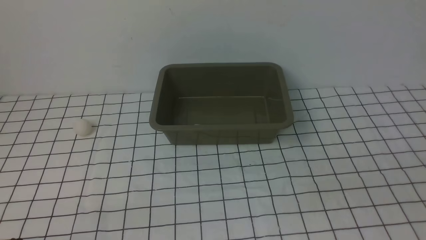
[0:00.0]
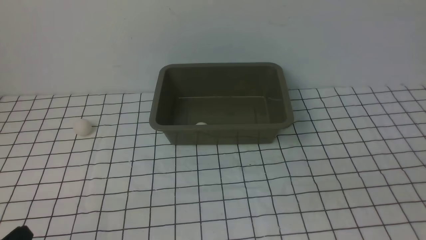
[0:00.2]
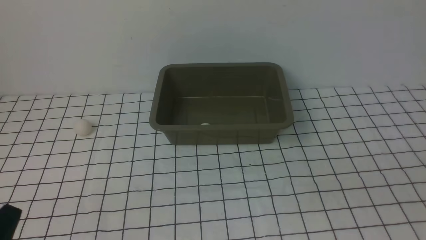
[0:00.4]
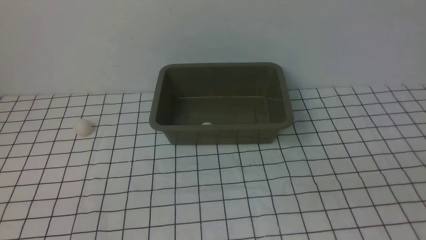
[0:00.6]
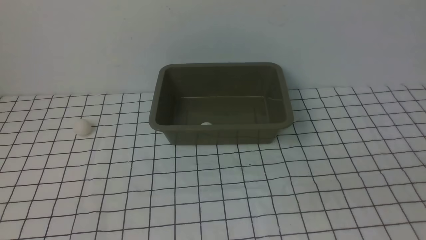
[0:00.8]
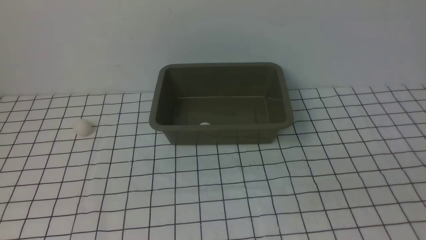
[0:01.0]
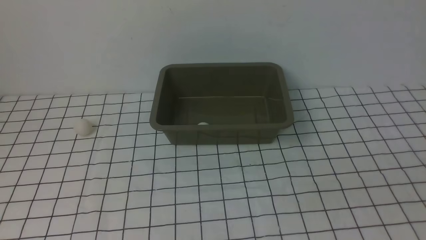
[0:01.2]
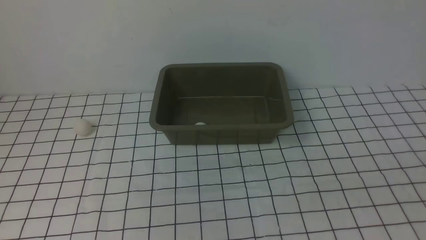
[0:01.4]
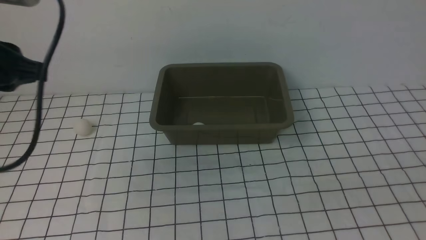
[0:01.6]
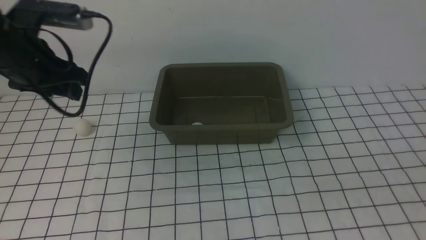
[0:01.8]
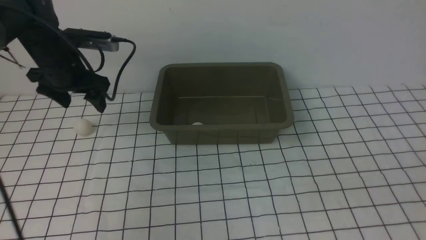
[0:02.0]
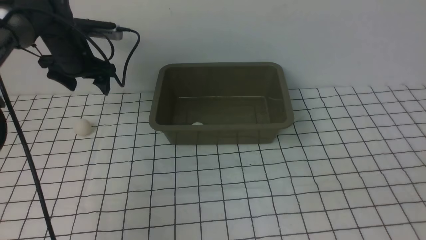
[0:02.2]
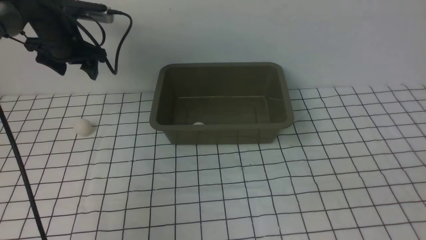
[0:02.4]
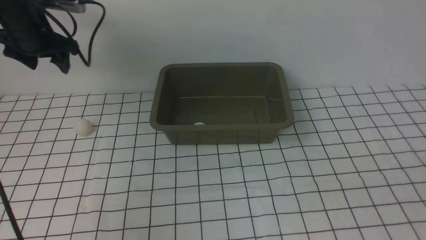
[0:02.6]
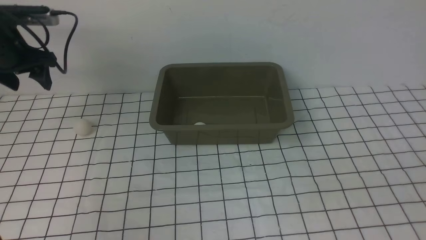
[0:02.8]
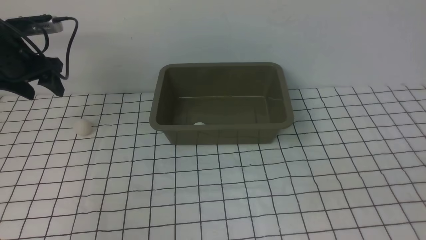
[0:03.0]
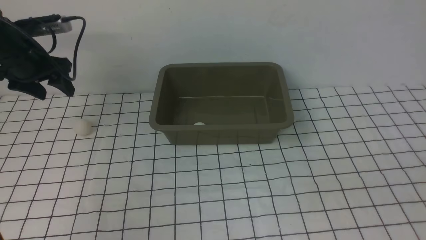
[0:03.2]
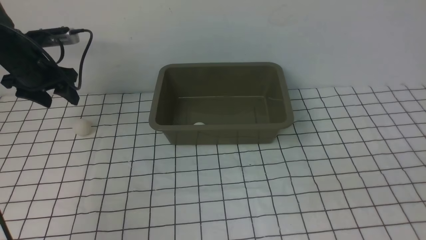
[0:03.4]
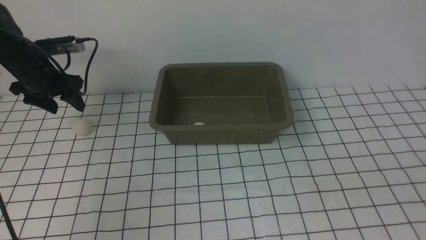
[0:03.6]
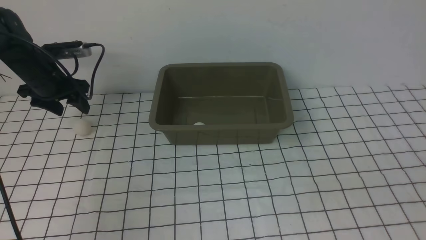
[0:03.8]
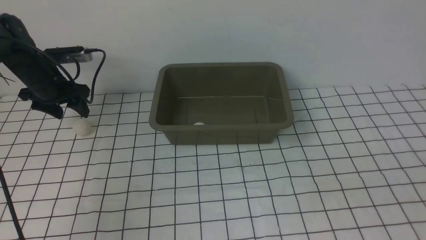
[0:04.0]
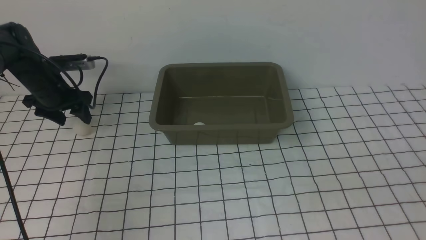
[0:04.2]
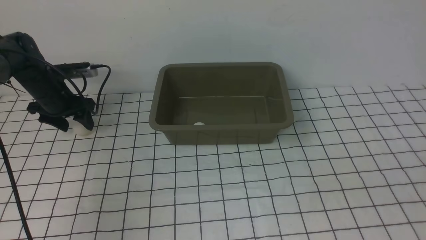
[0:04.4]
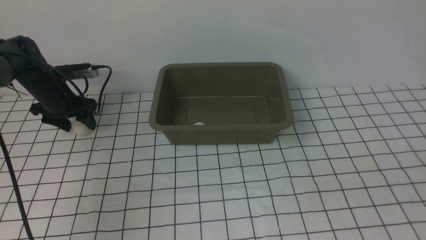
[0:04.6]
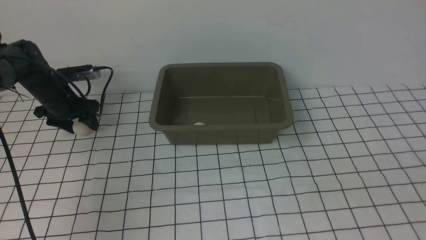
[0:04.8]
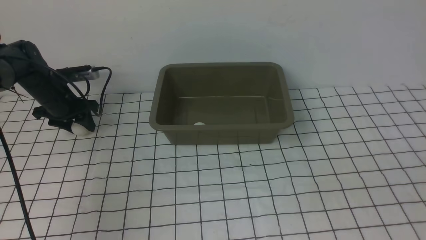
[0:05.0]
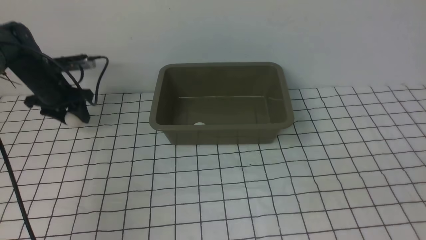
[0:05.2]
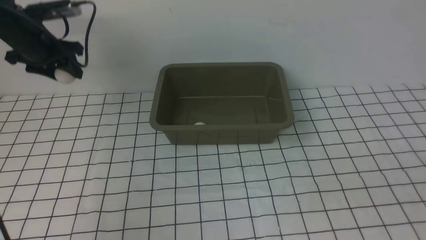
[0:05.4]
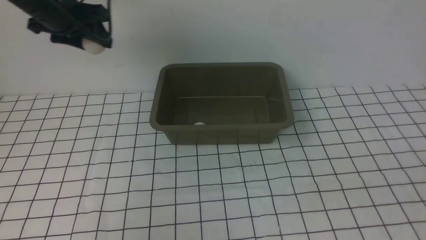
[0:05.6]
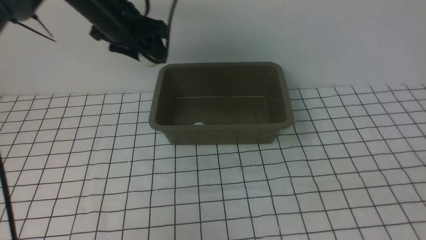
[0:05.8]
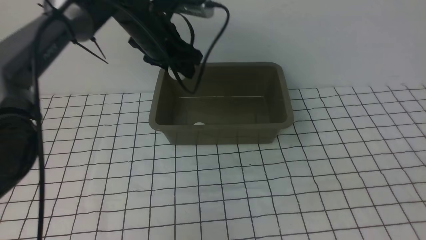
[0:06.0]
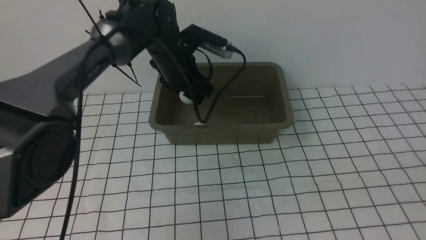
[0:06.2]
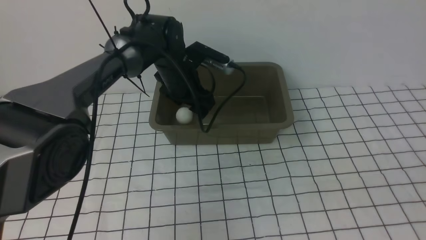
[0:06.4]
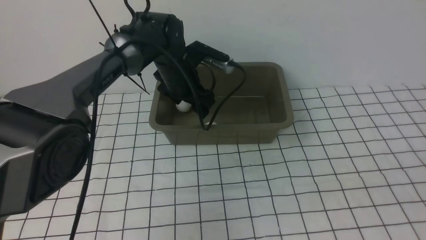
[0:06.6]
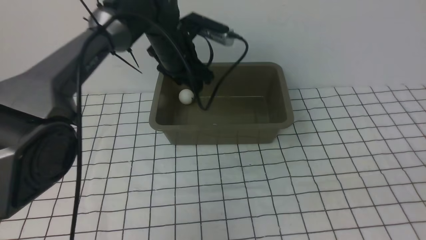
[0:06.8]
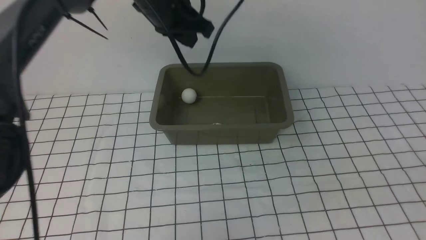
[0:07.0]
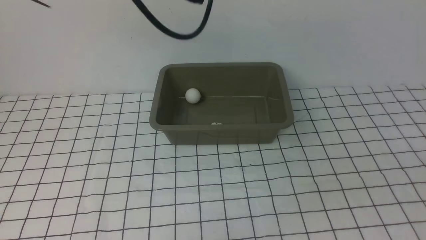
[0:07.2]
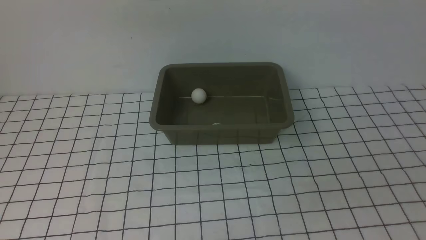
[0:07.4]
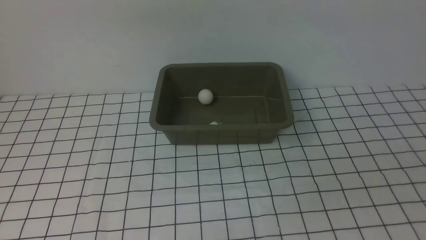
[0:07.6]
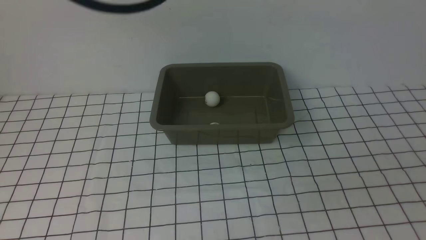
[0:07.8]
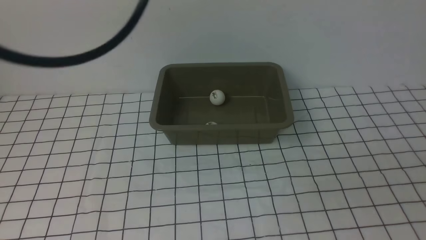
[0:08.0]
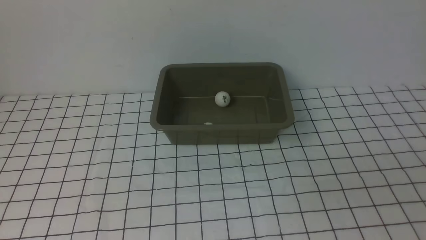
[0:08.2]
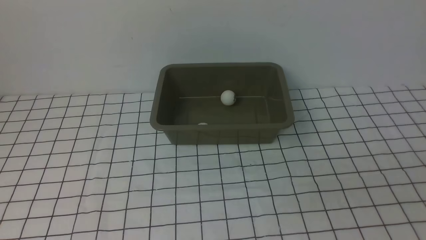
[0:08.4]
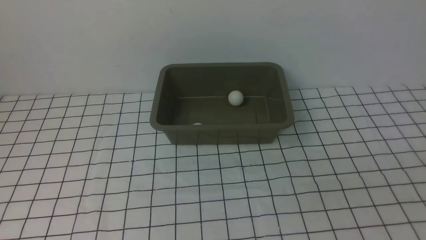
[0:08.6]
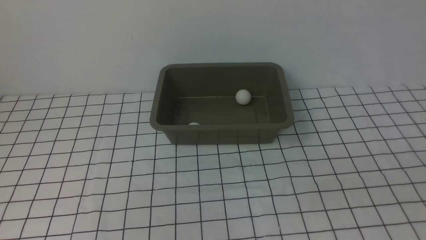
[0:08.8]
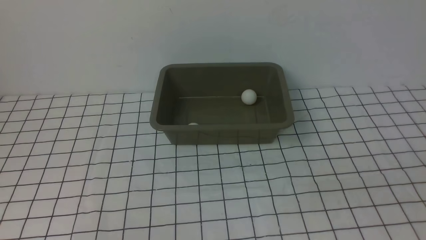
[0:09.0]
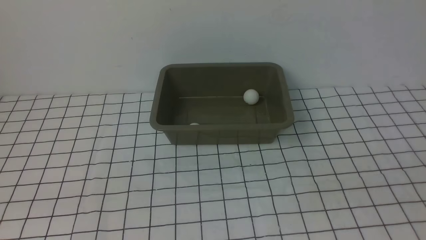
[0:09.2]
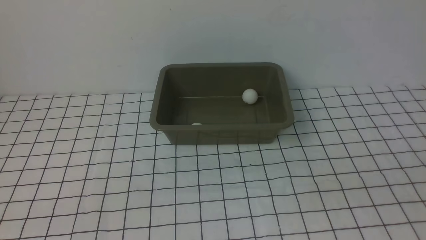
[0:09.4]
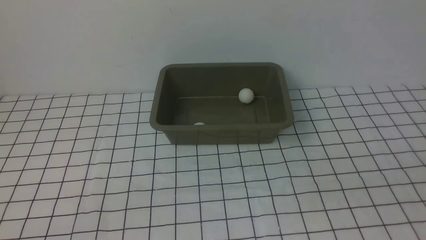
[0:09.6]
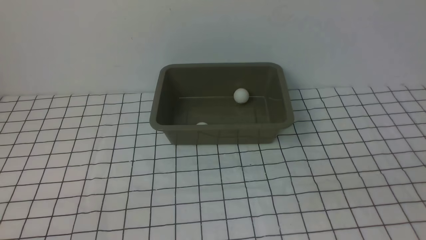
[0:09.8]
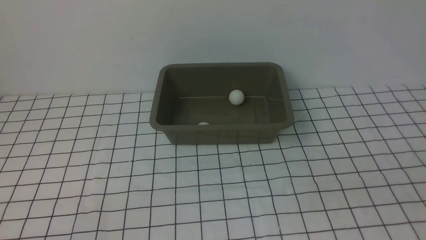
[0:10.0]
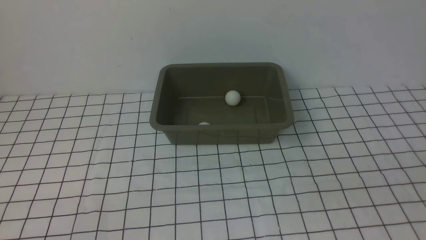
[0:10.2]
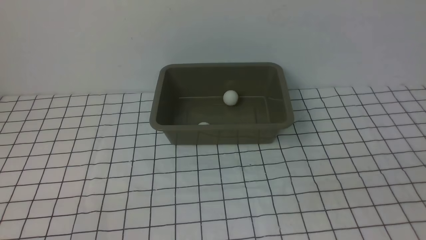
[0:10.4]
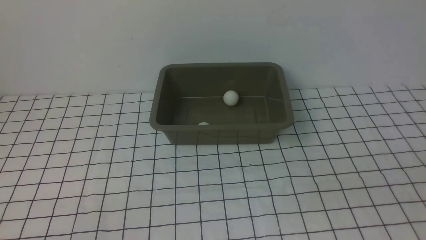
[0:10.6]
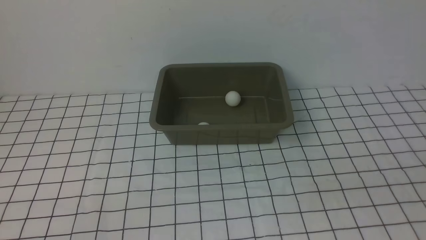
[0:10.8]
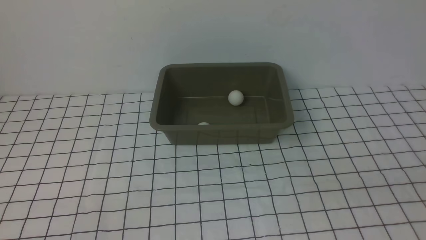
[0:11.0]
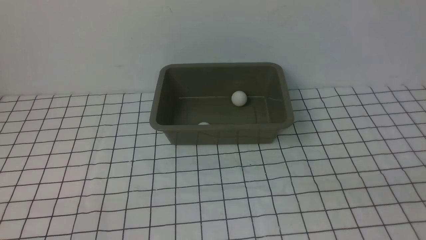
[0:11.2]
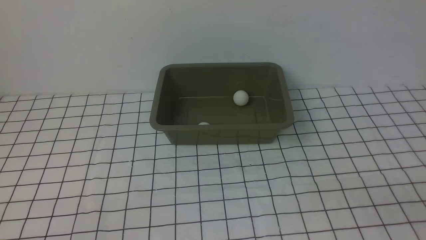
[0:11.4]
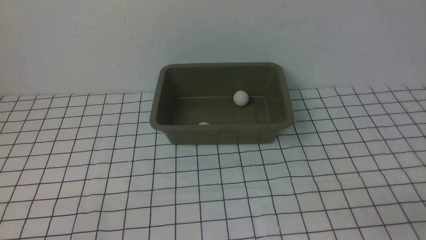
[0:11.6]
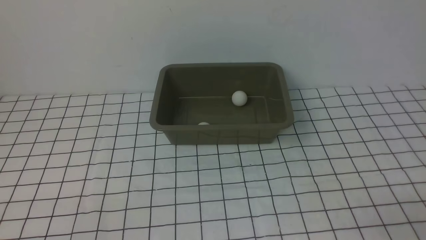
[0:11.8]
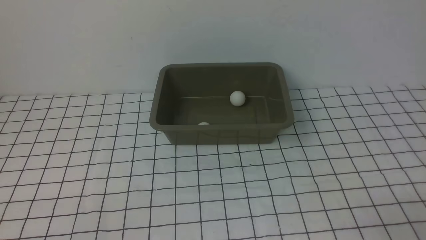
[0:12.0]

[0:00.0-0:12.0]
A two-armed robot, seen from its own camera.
Step, 0:00.0 to 0:05.4: use the left arm to clamp the table tennis ball closest to it.
Step, 0:05.6 to 0:06.6: use the left arm to put the table tennis ball into the box.
0:00.0 to 0:01.6: The left gripper goes roughly 35 cm forward, and opens.
0:01.6 to 0:03.0: The left gripper shifts approximately 10 cm to the left, downward and forward.
0:03.0 to 0:04.4: The left gripper travels downward by approximately 10 cm.
0:04.4 to 0:06.0: The left gripper shifts some 25 cm to the right and upward.
0:06.0 to 0:07.6: The left gripper moves upward and backward, some 30 cm, and closes its fingers.

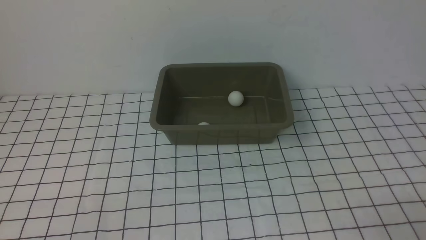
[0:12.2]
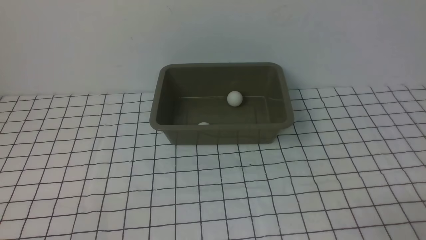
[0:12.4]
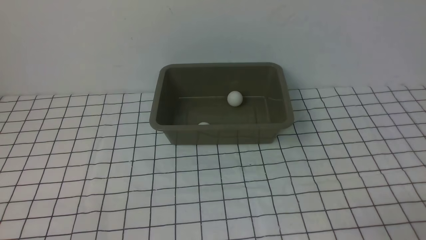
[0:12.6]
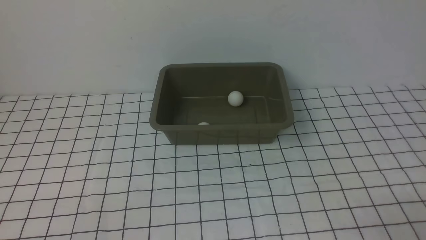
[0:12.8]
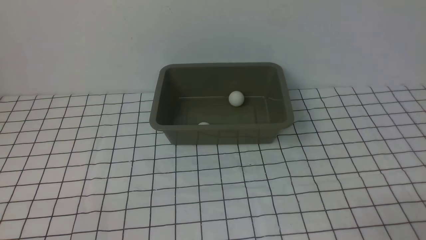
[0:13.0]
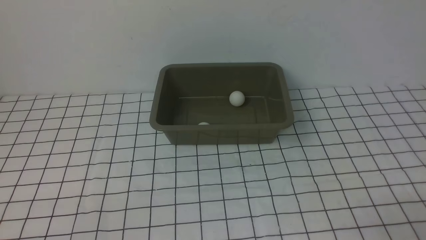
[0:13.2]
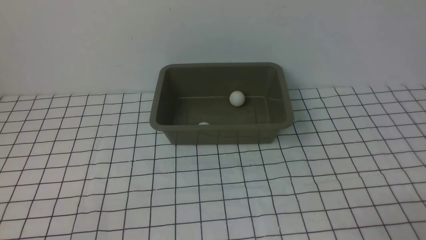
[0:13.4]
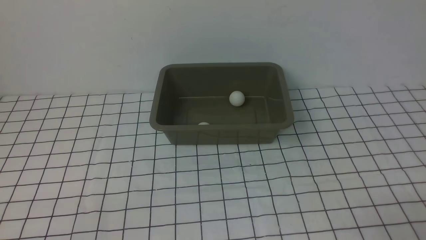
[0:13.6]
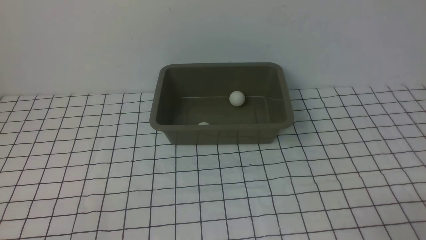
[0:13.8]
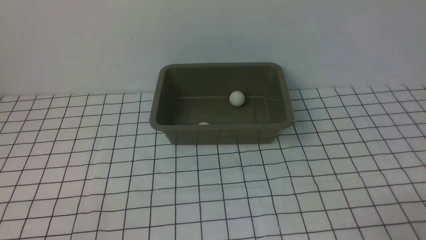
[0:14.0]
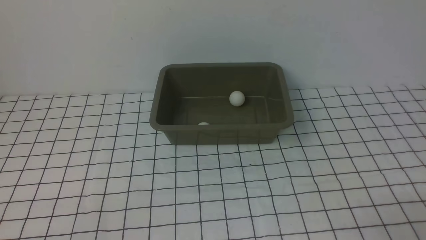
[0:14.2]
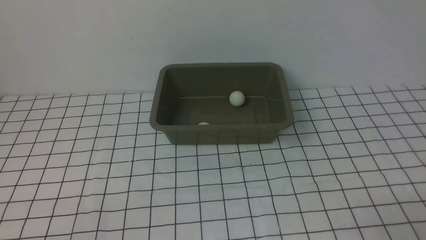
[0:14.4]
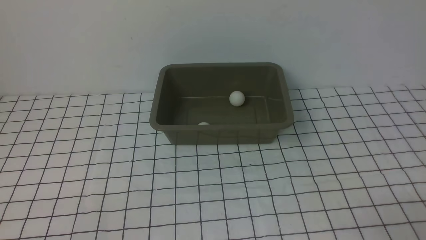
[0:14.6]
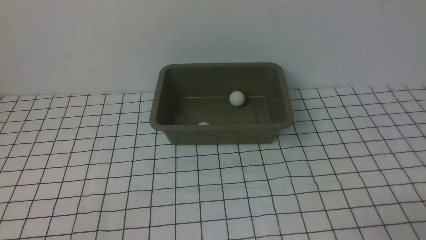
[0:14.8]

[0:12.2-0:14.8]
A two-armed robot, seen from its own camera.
0:12.2 to 0:14.8: Both grippers stay put.
